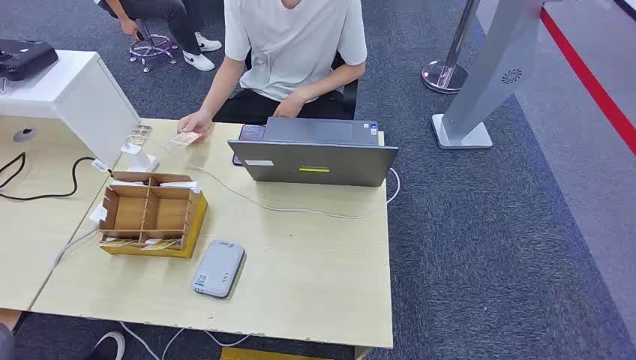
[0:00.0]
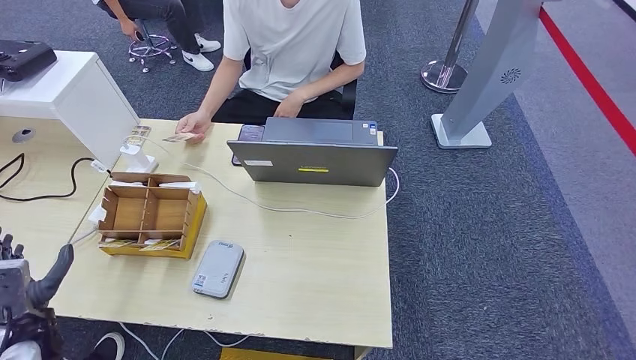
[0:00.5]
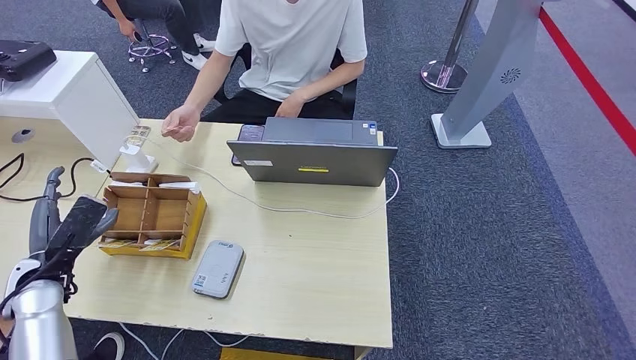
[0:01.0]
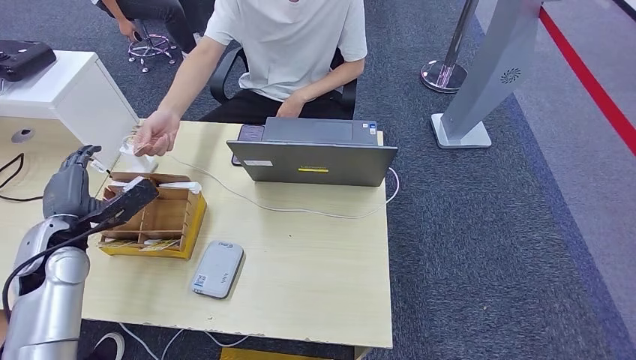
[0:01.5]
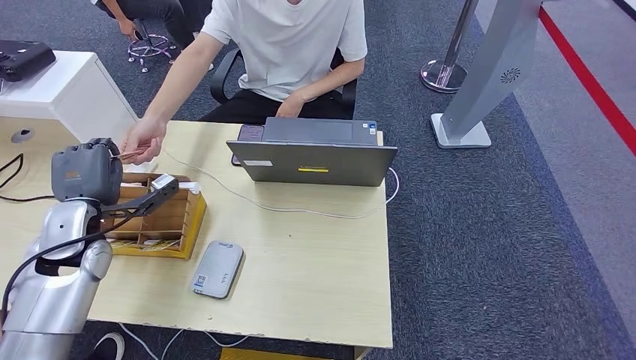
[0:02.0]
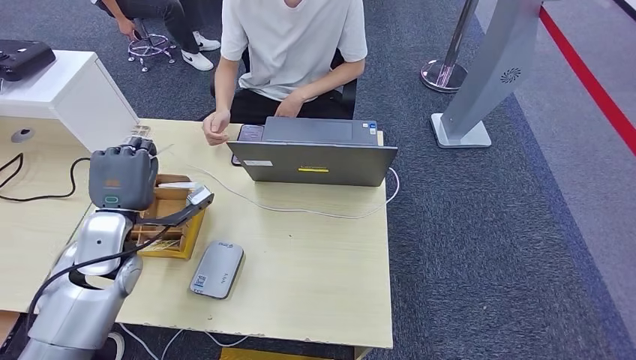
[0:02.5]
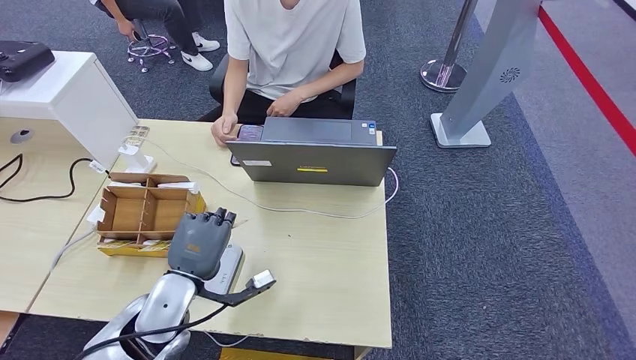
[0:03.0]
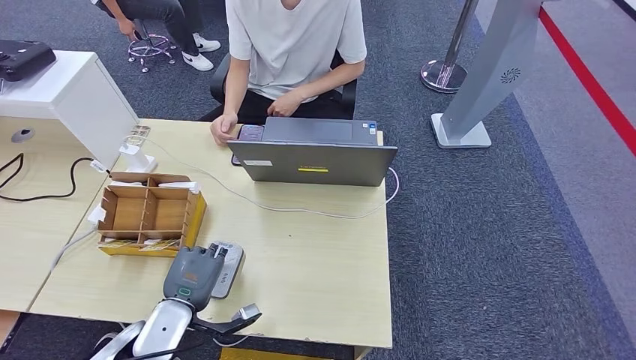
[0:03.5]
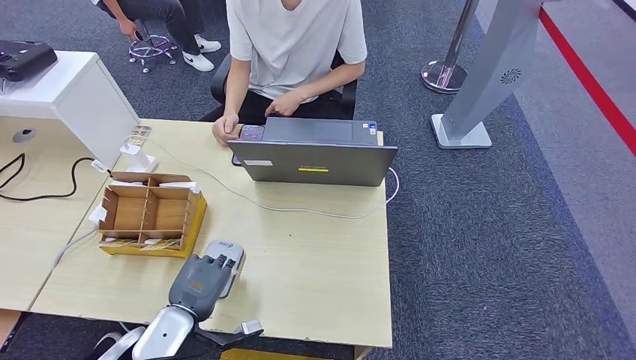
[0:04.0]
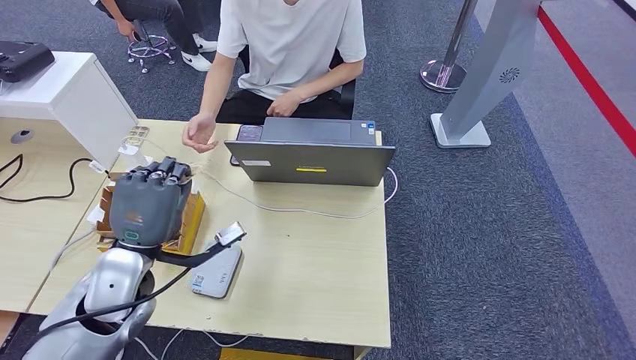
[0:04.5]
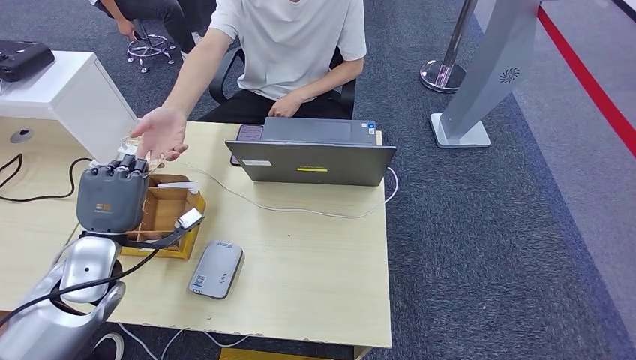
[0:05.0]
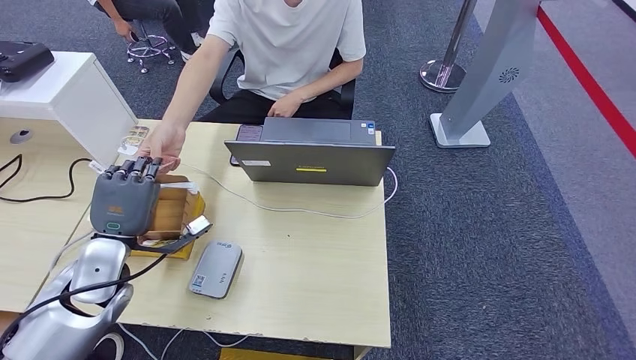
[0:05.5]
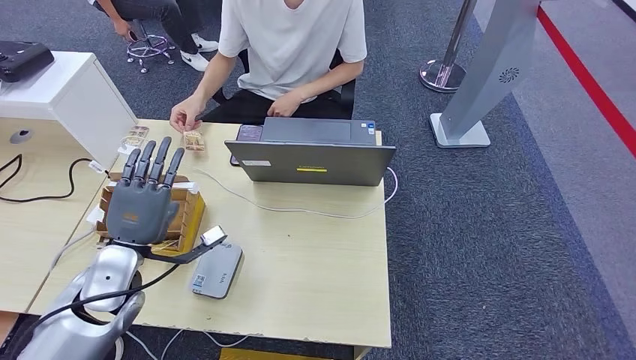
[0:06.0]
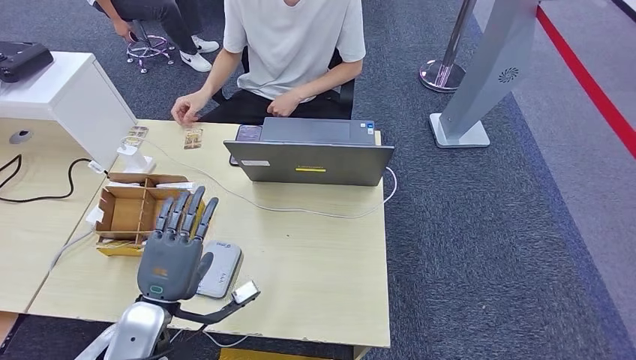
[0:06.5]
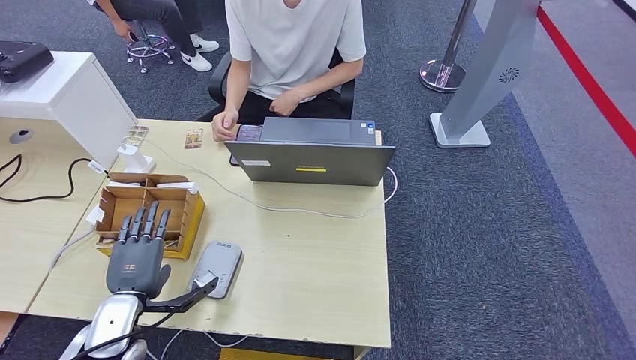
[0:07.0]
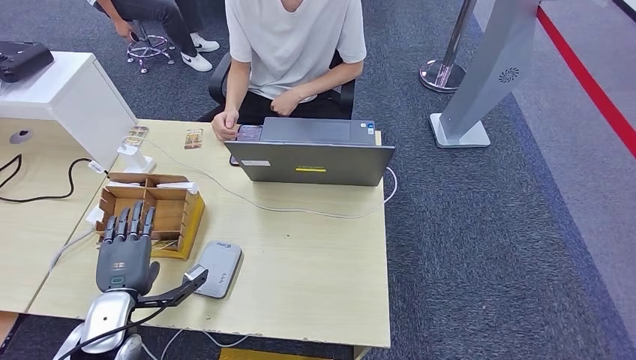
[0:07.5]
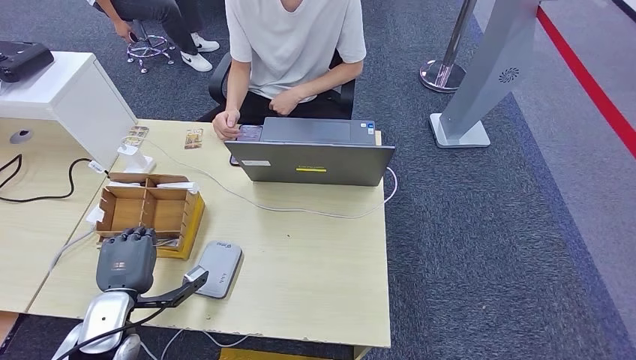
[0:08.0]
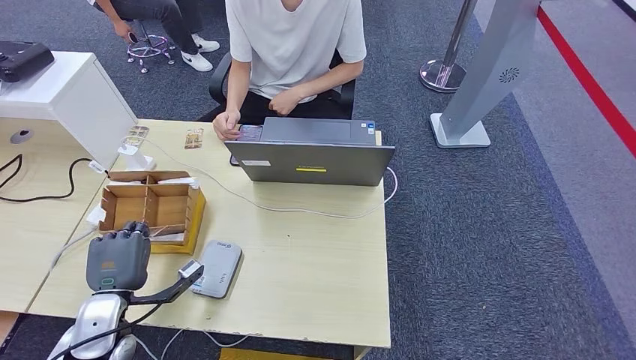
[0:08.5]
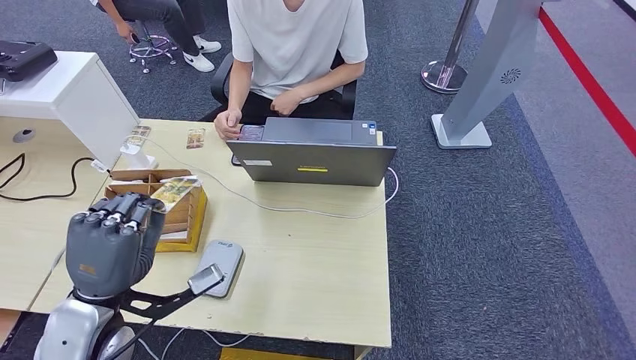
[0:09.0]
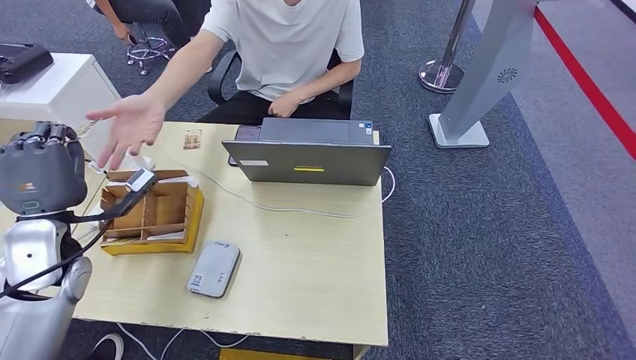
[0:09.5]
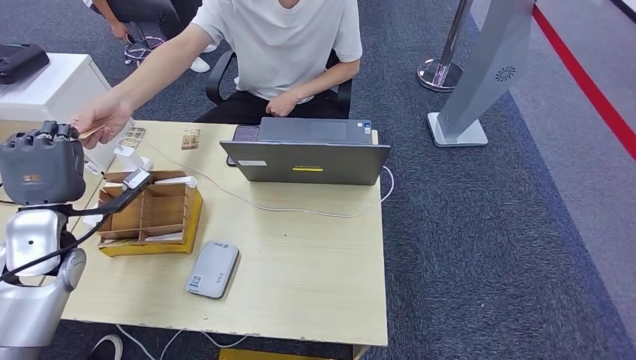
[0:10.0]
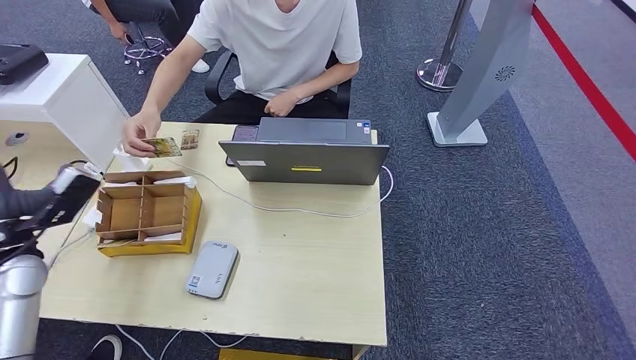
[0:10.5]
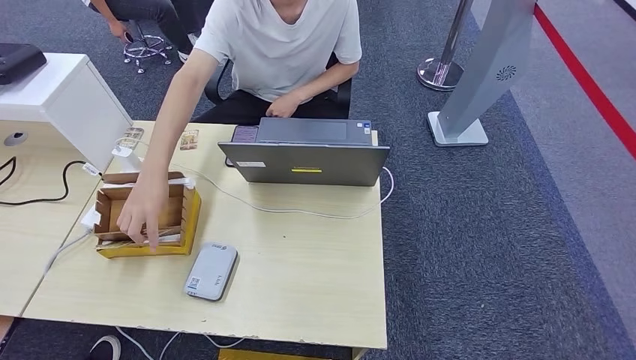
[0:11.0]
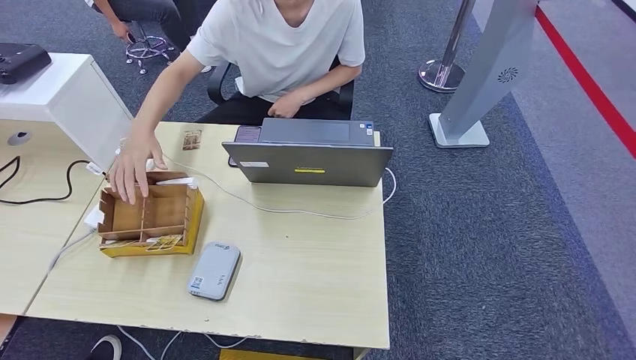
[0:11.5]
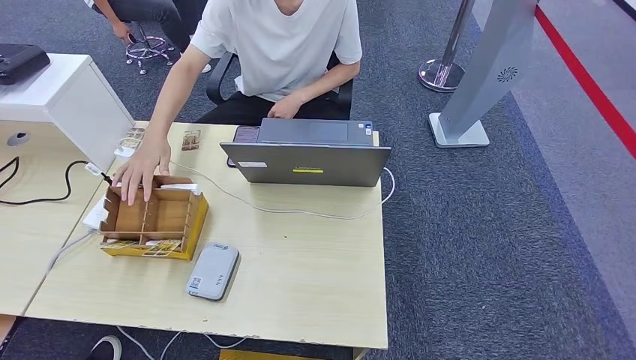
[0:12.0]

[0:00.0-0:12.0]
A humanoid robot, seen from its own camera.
Step, 0:00.0 to 0:01.5: Take the ID card from the person's hand.
Step, 0:02.0 to 0:04.5: Place the ID card on the card reader.
Step, 0:05.5 to 0:07.0: Hand the ID card to the person.
Step, 0:07.5 to 0:09.5: Pick up the room key from the key card box.
Step, 0:10.0 to 0:12.0: Hand the room key to the person.
0:02.0 to 0:04.0: The left hand heads to the right, backward and downward, covering about 20 cm.
0:04.0 to 0:06.0: The left hand travels forward, to the left and upward by about 15 cm.
0:06.0 to 0:08.0: The left hand travels downward and backward by roughly 10 cm, and moves about 5 cm to the right and comes back.
0:10.0 to 0:12.0: The left hand travels downward and backward by approximately 50 cm. Meanwhile the right hand ends up roughly 5 cm from where it was.

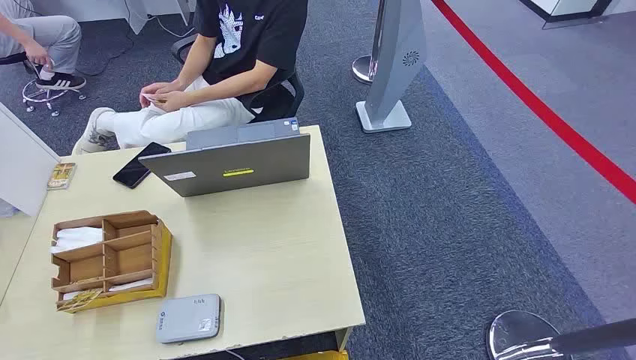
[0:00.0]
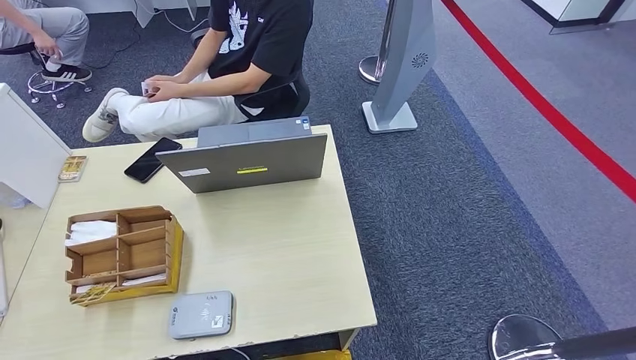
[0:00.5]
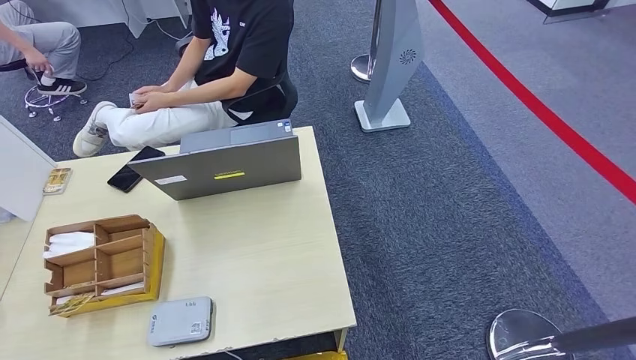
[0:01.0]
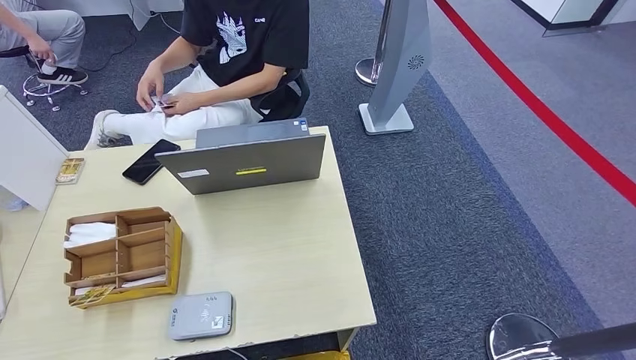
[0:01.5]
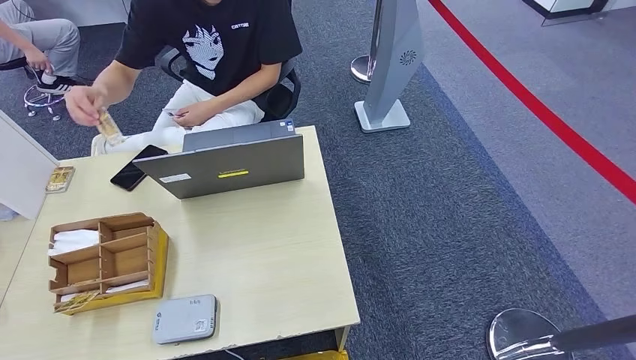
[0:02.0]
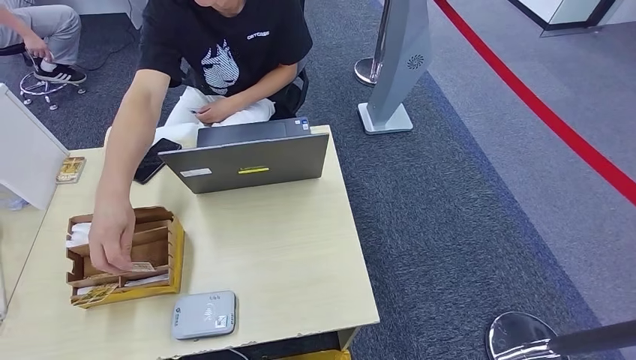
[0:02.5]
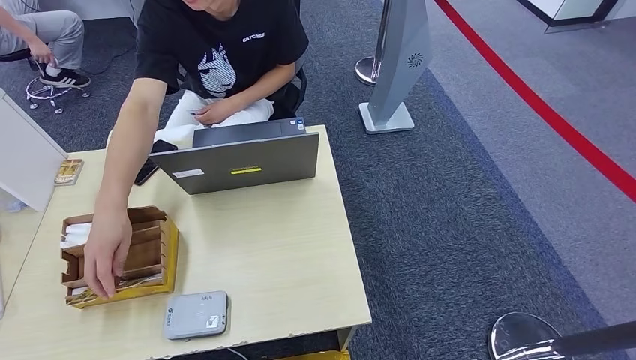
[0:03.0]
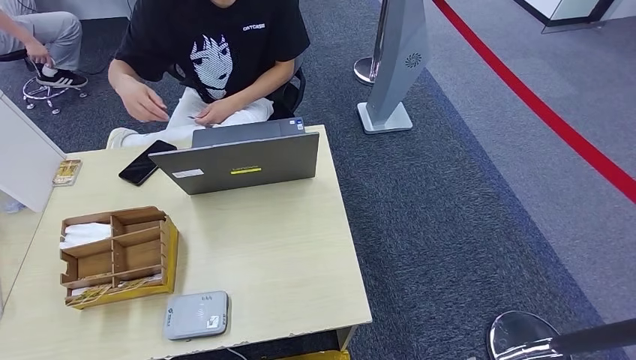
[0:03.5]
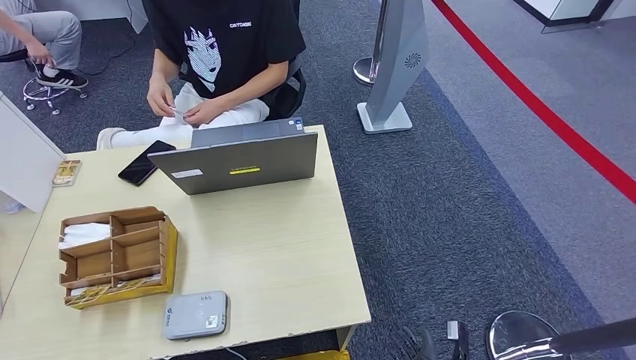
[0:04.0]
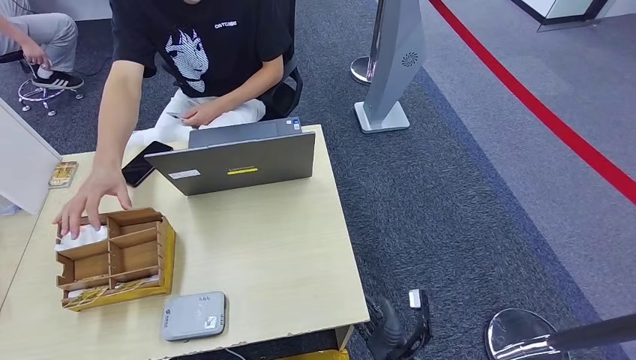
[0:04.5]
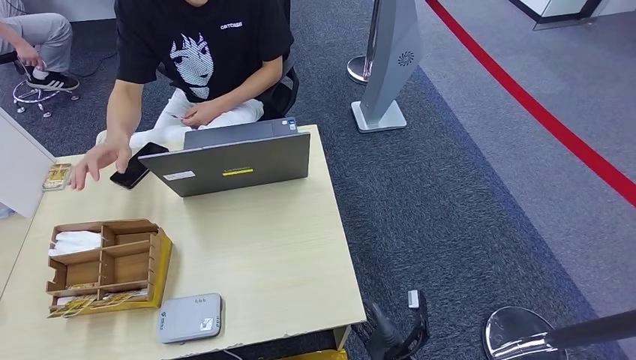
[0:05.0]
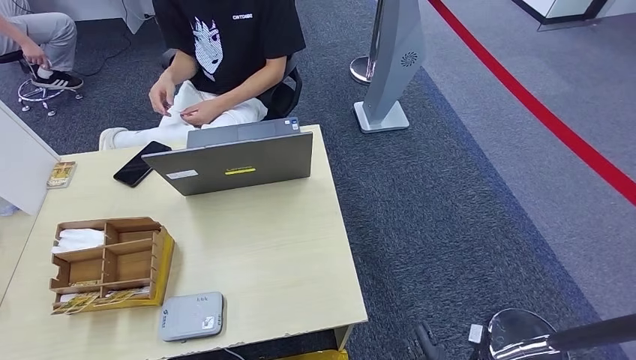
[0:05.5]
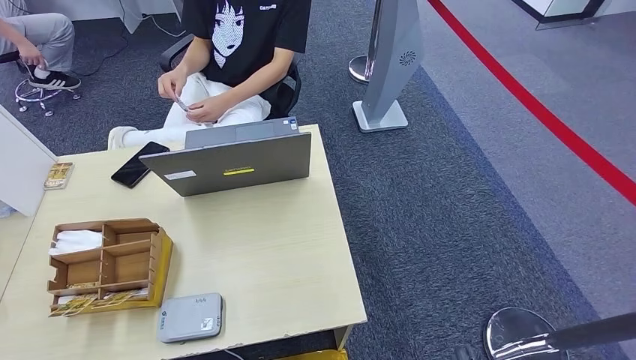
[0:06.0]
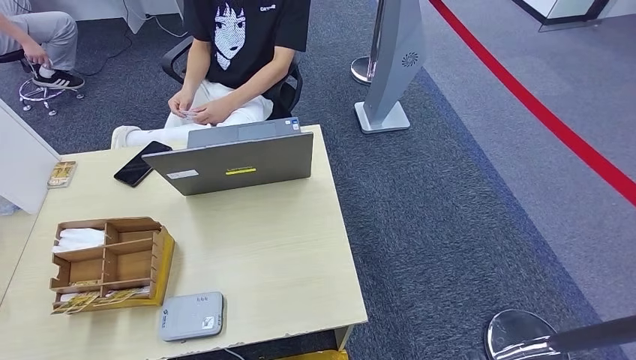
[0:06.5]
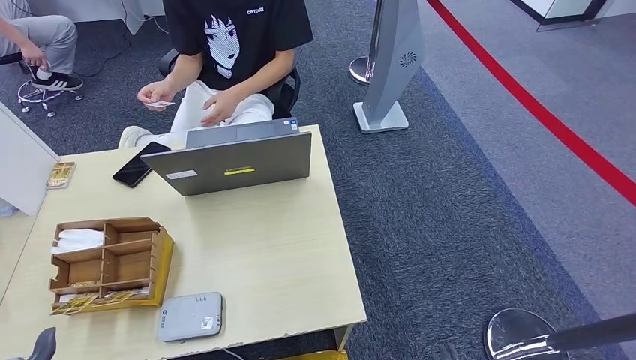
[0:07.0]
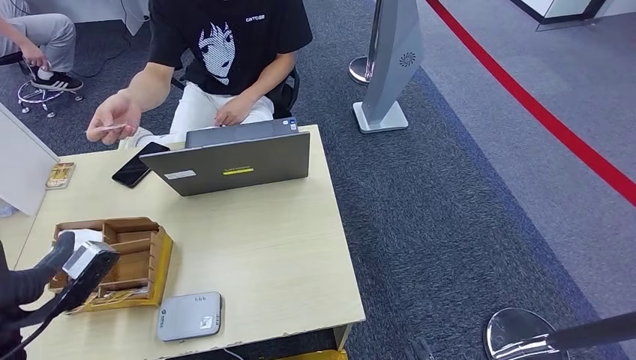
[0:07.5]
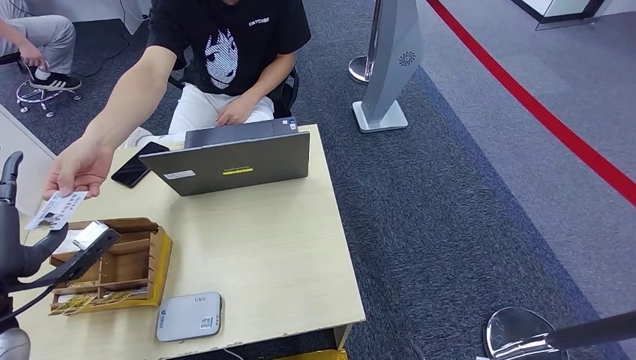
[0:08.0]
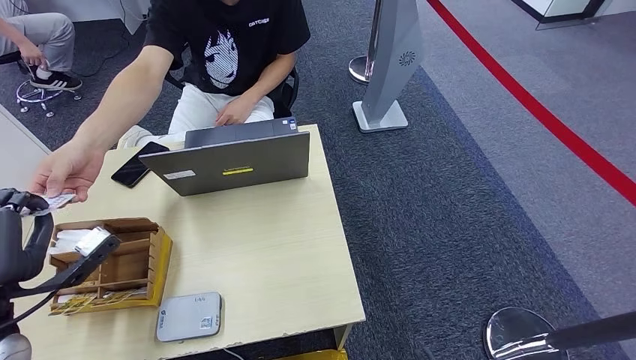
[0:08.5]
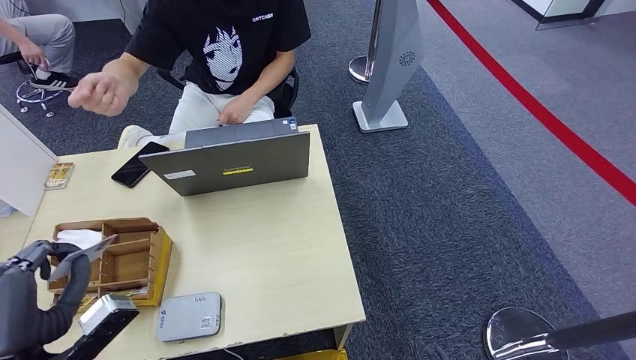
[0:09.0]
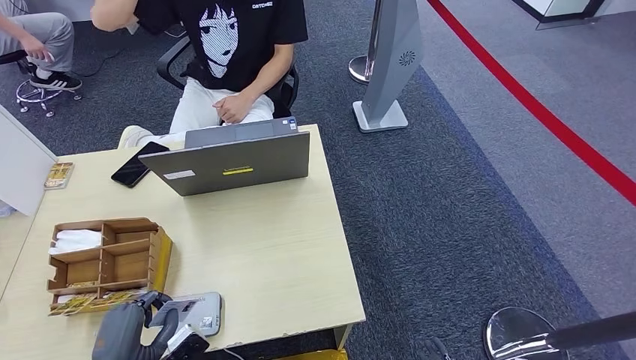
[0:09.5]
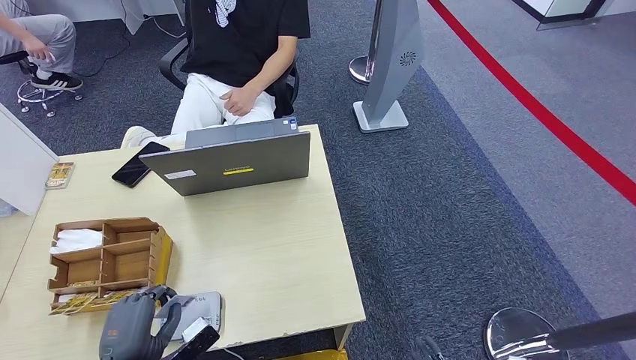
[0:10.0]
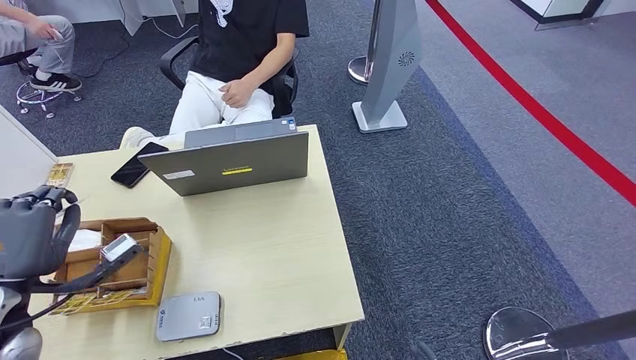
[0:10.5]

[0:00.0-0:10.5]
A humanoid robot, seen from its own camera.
Step, 0:00.0 to 0:08.0: Take the ID card from the person's hand.
Step, 0:08.5 to 0:09.5: Place the ID card on the card reader.
0:02.0 to 0:04.0: The right hand heads forward, covering roughly 10 cm.
0:04.0 to 0:06.5: The left hand heads upward and to the left, covering about 15 cm; the right hand moves backward and upward, approximately 10 cm.
0:08.5 to 0:10.5: The left hand travels downward and back again, about 10 cm each way. The right hand travels upward by some 10 cm.
